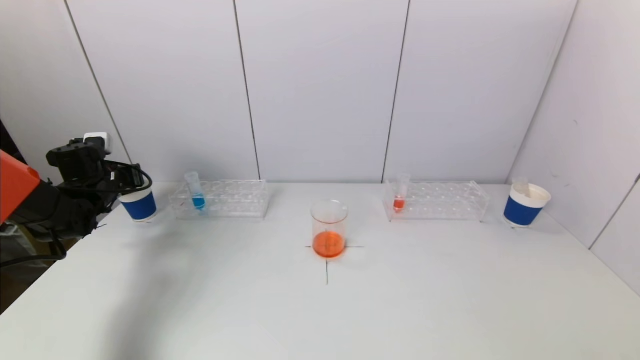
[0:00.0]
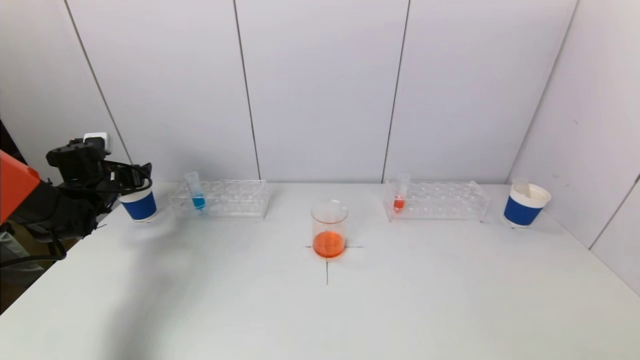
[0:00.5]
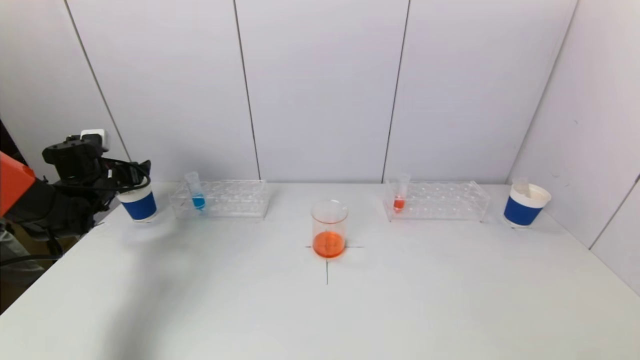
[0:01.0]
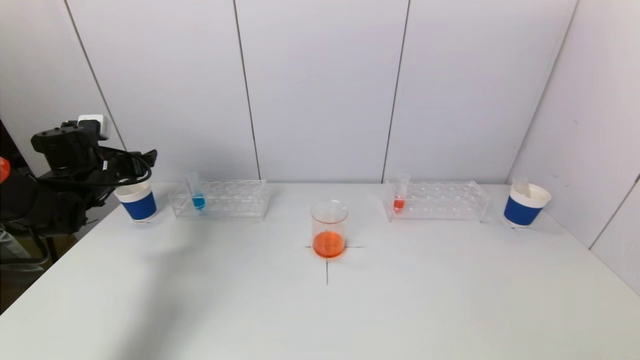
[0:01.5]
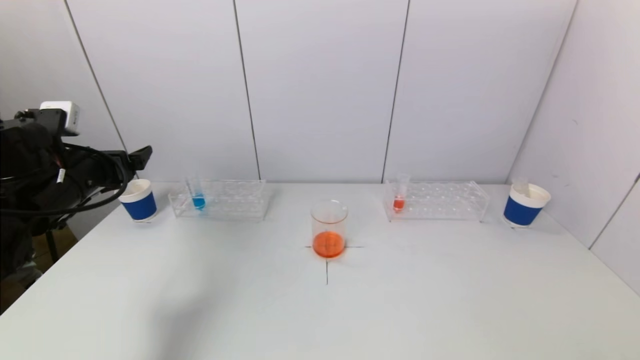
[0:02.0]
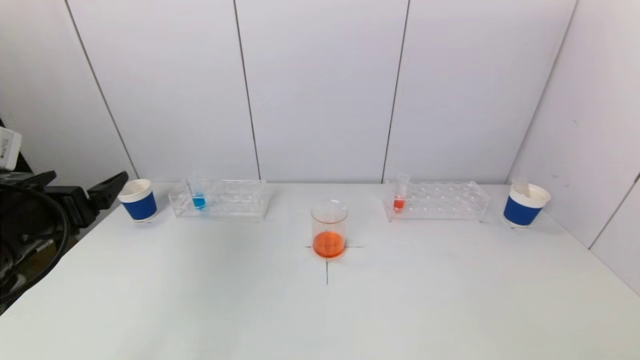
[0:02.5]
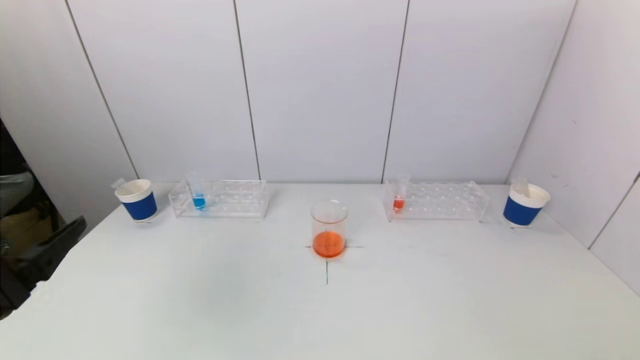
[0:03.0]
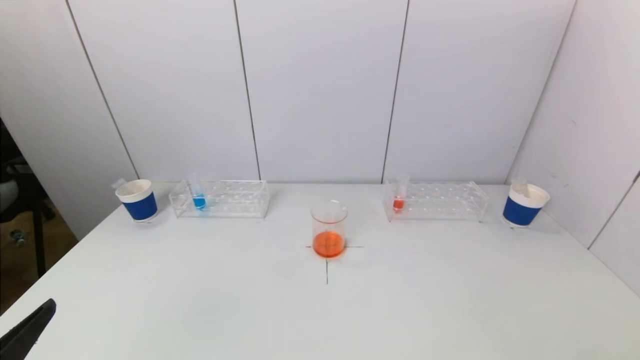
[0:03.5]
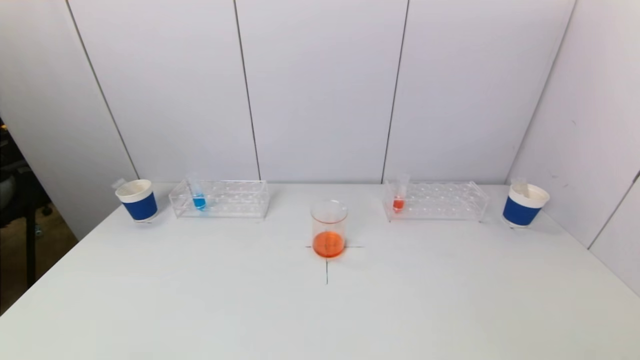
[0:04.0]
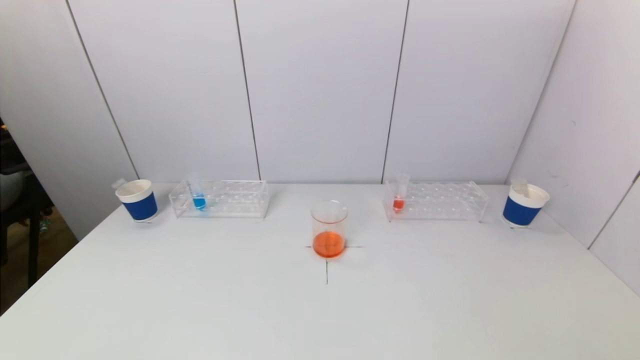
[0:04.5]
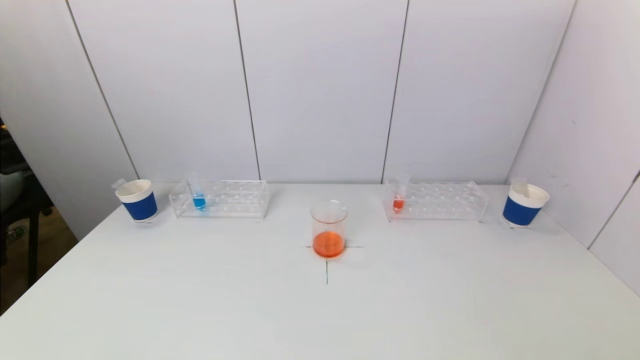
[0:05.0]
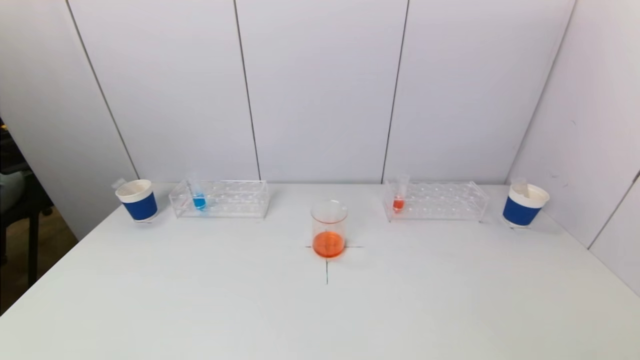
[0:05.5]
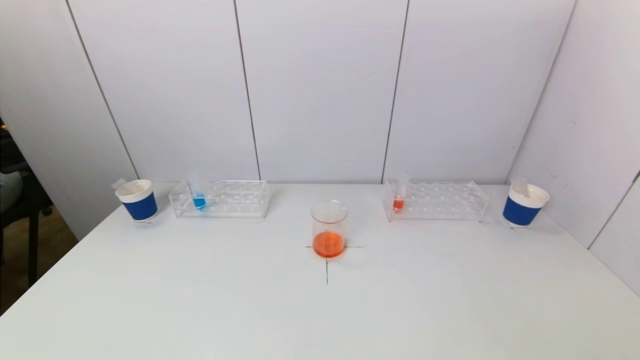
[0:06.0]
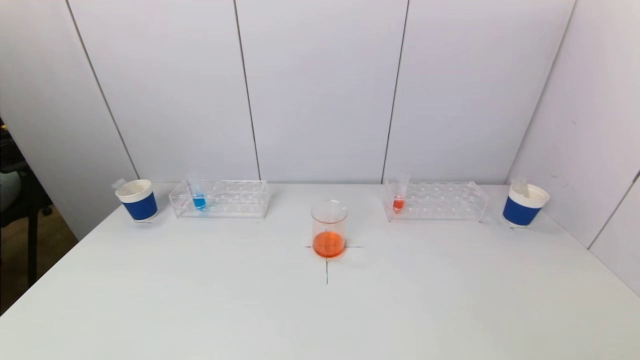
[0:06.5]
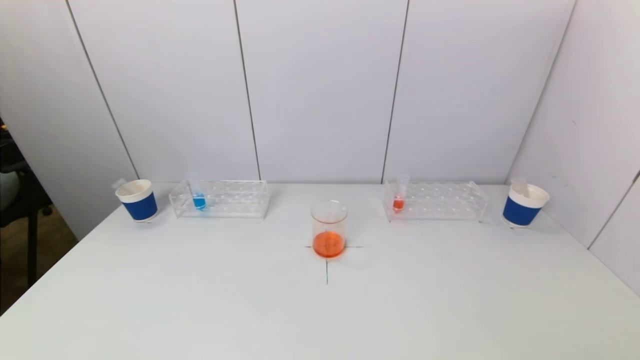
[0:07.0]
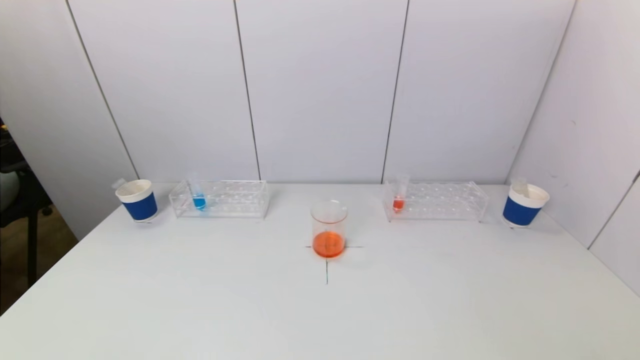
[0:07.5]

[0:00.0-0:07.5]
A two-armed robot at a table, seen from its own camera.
Task of the whole recording: pick up a test tube with pigment on left test tube rack and a test tube with pigment on right test tube rack by grippers and pour them into the beaker.
0:00.0 to 0:02.0: The left gripper shifts some 20 cm backward, upward and to the right, and opens its fingers.
0:02.0 to 0:04.0: The left gripper shifts roughly 30 cm backward.
0:05.5 to 0:07.5: Neither gripper changes place.

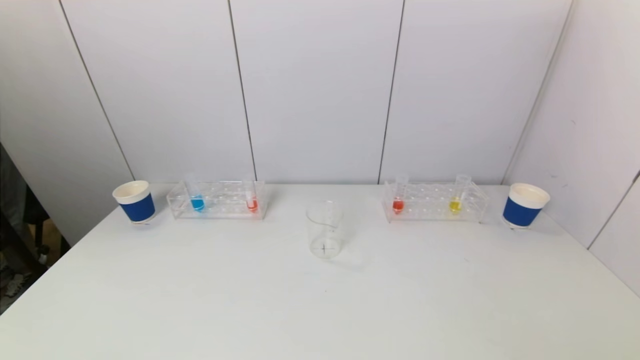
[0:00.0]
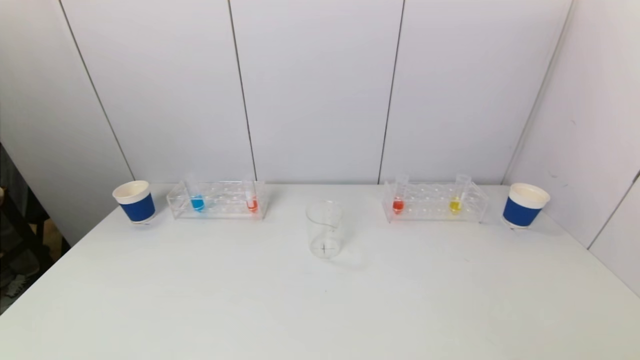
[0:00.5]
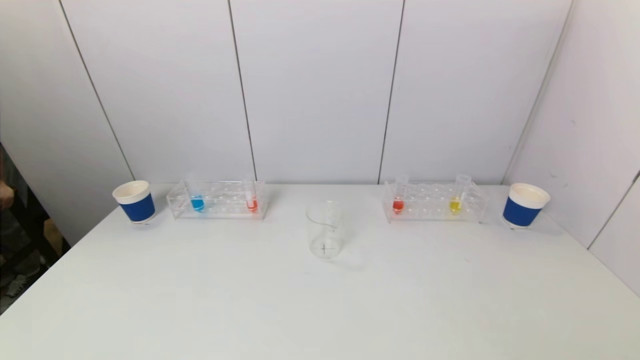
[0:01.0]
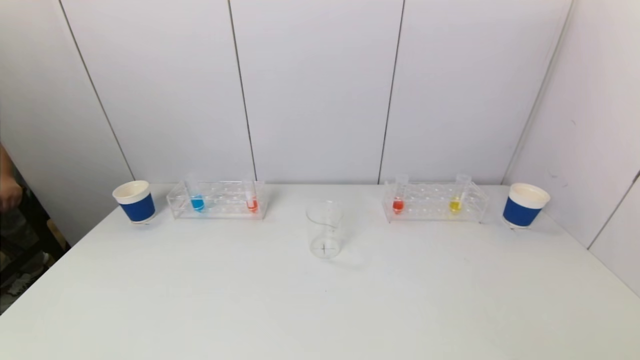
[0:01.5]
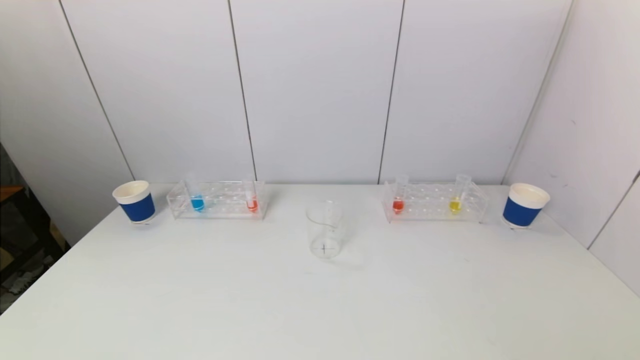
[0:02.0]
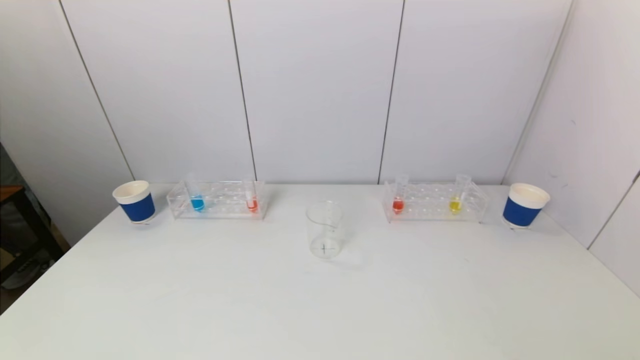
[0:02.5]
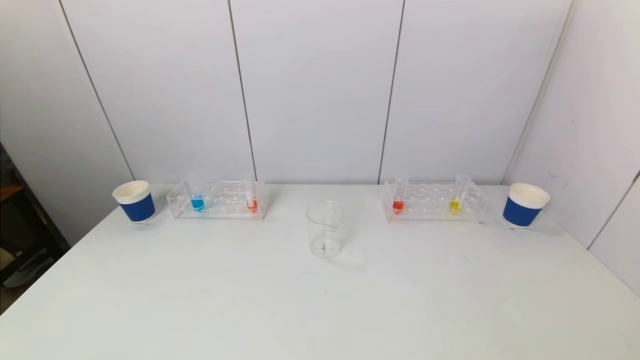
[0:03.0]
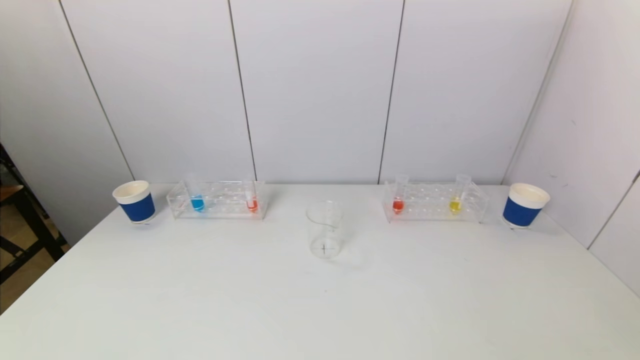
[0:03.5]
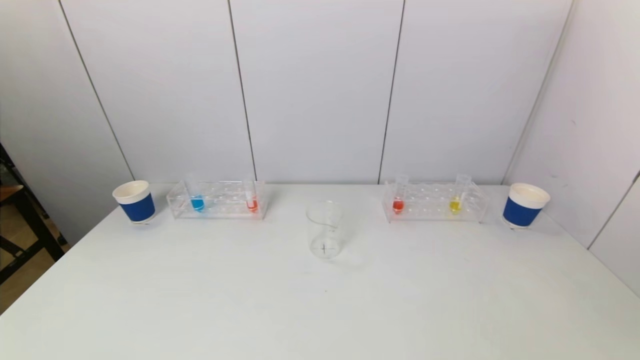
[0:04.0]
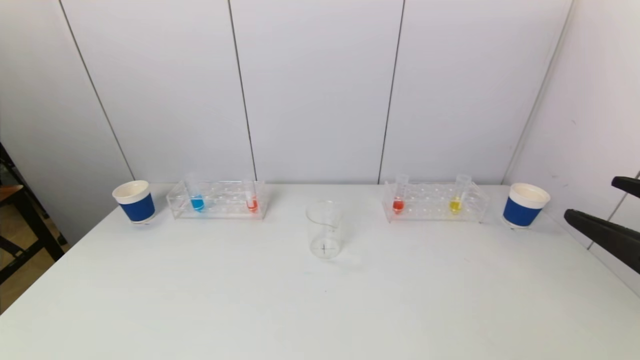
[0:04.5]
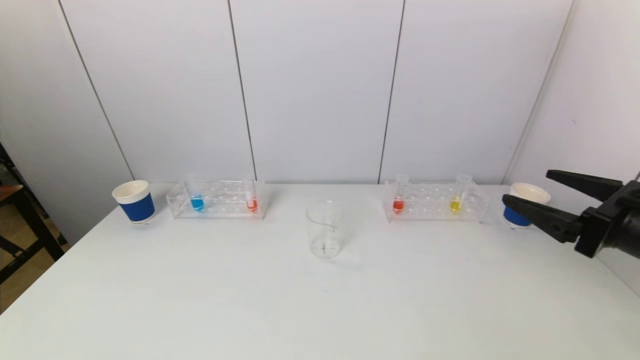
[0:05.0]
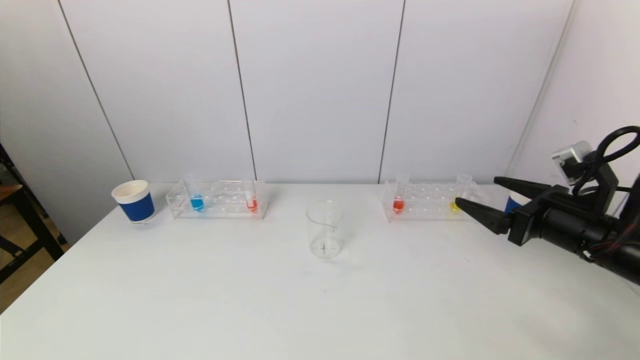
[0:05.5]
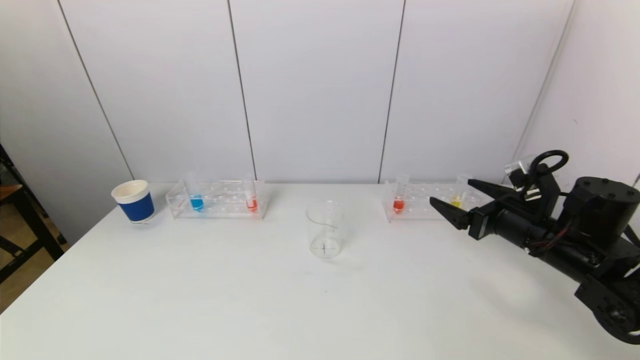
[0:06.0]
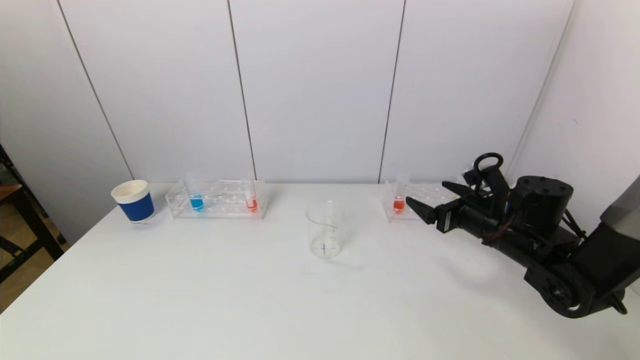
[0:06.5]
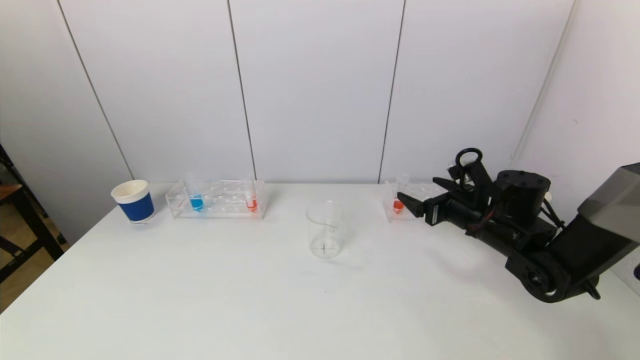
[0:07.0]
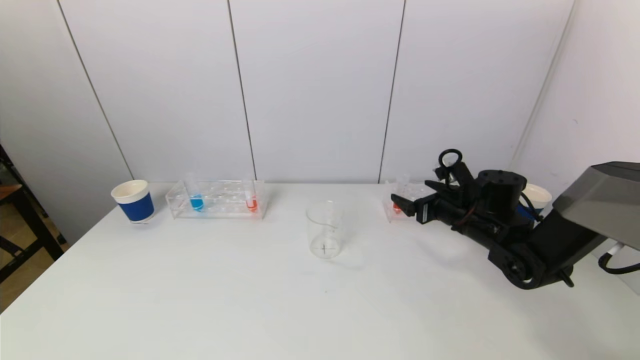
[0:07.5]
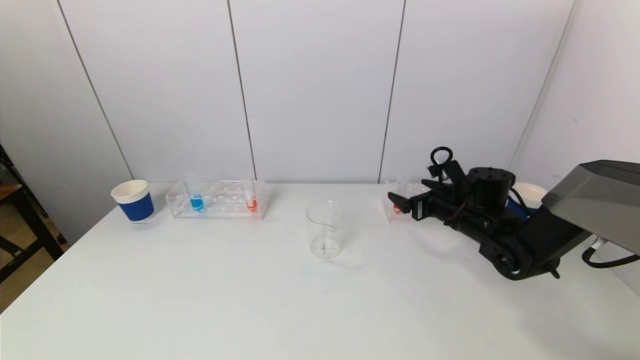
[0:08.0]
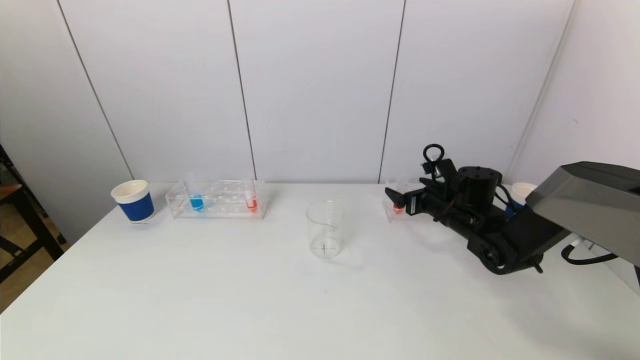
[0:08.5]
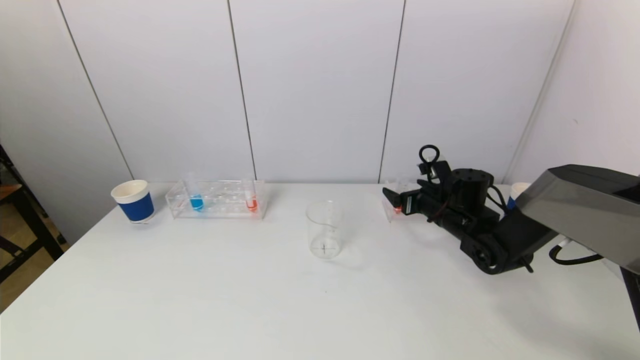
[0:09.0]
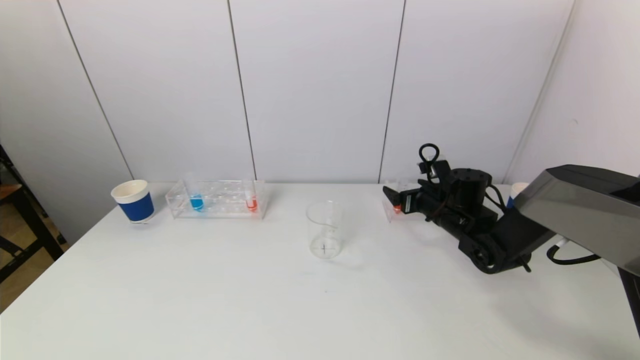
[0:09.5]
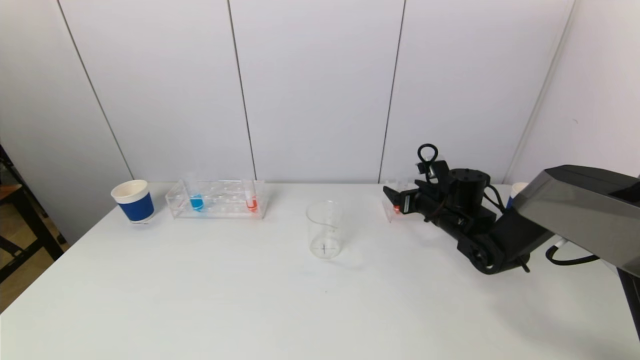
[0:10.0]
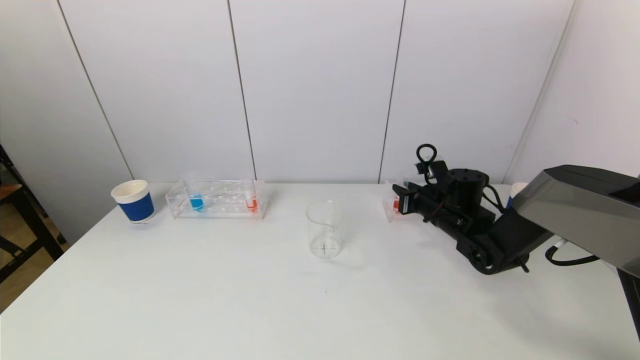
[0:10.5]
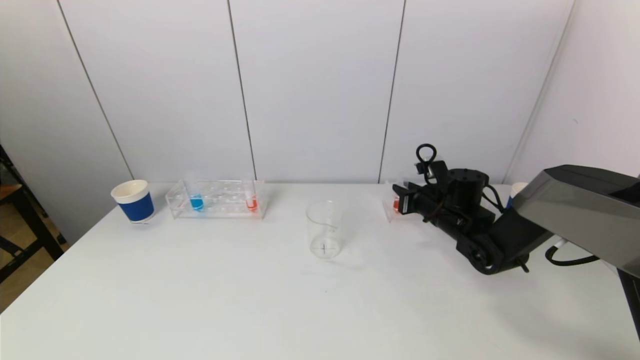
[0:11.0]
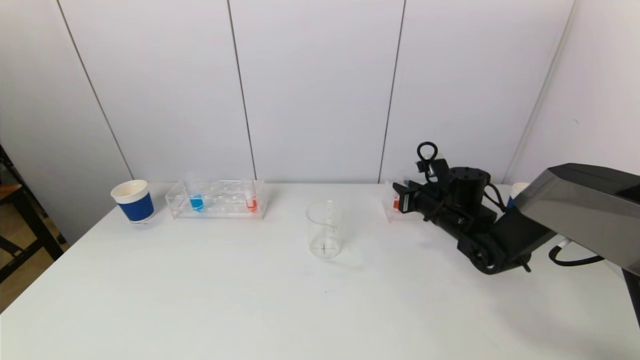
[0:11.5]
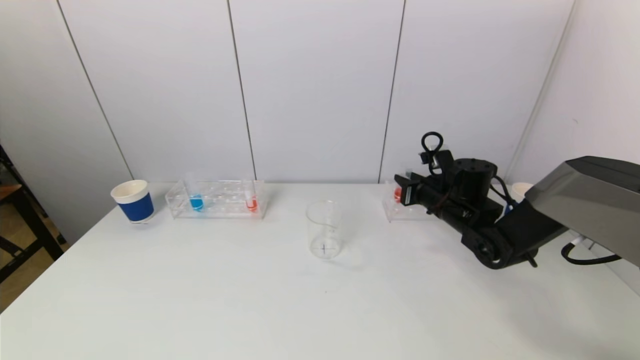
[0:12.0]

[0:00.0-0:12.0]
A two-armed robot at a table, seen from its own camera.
Task of the whole recording: pick up a test tube with pigment on left test tube rack and a test tube with pigment on right test tube rack by grippers and pour them into the beaker.
Step, 0:00.0 to 0:10.5: Grasp the red reagent with the right gripper.
0:00.0 to 0:02.0: Neither gripper changes place.
0:04.0 to 0:06.0: The right gripper moves forward and downward, some 25 cm.
0:06.0 to 0:08.0: The right gripper moves forward, approximately 10 cm.
0:08.0 to 0:10.0: The grippers stay close to where they were, moving slightly.
0:10.0 to 0:12.0: The right gripper closes.
